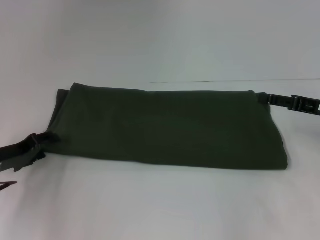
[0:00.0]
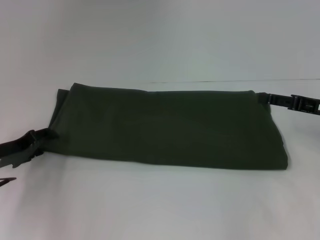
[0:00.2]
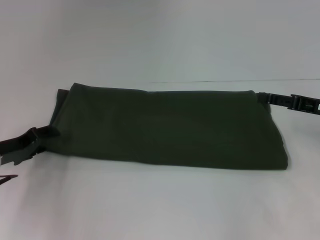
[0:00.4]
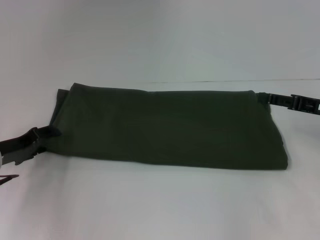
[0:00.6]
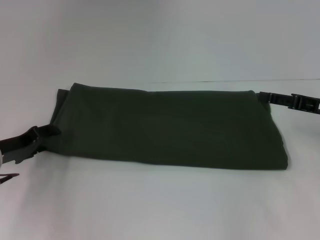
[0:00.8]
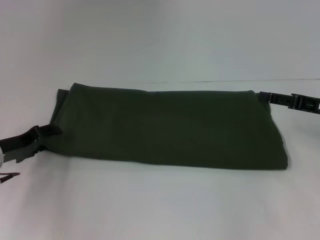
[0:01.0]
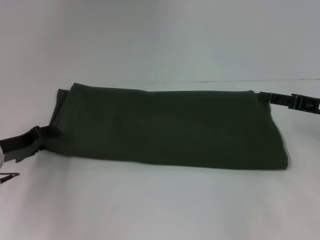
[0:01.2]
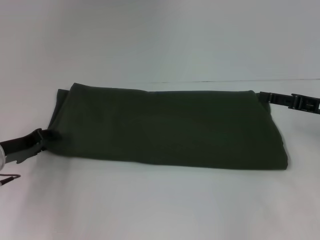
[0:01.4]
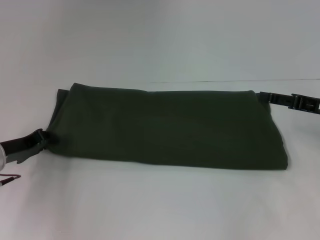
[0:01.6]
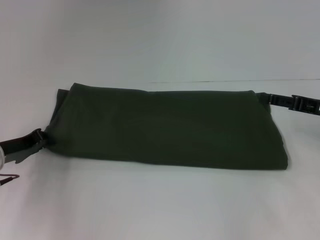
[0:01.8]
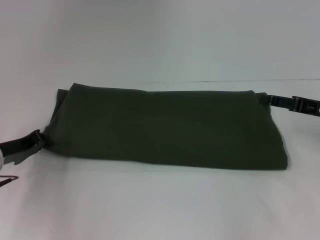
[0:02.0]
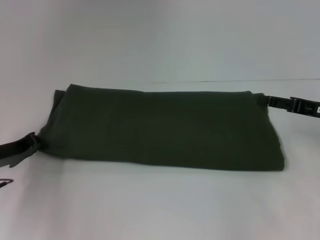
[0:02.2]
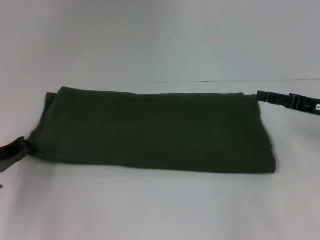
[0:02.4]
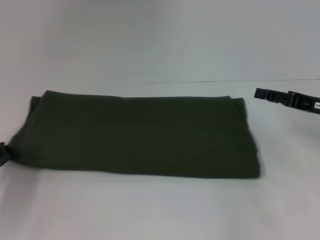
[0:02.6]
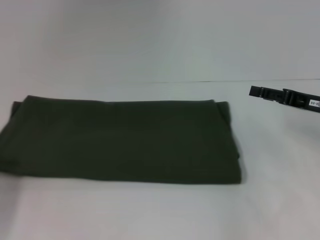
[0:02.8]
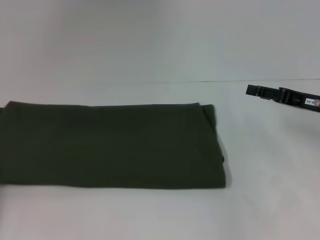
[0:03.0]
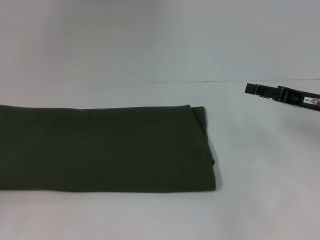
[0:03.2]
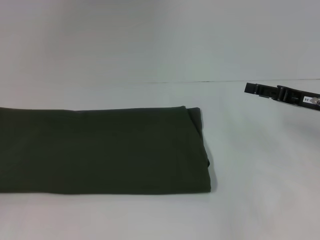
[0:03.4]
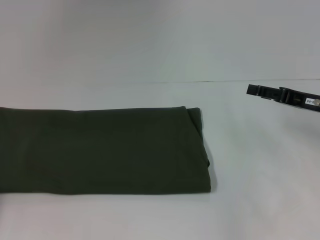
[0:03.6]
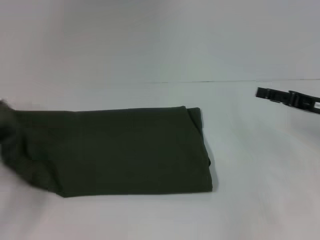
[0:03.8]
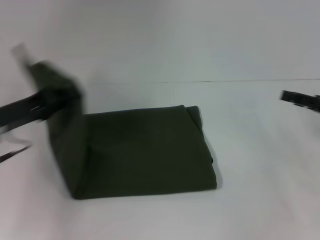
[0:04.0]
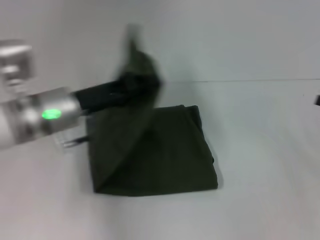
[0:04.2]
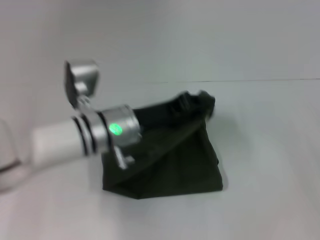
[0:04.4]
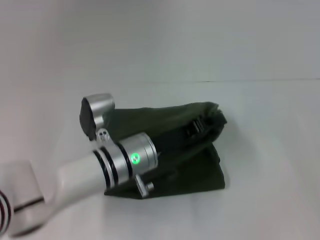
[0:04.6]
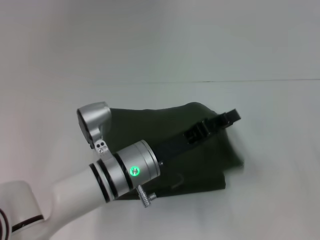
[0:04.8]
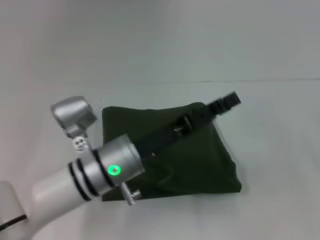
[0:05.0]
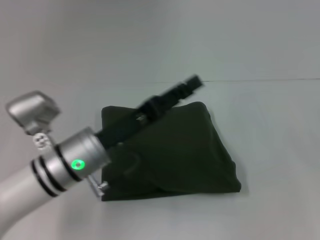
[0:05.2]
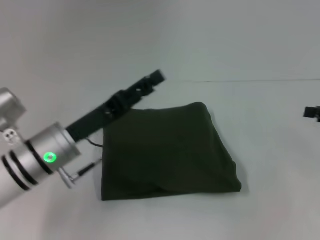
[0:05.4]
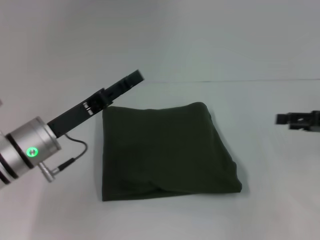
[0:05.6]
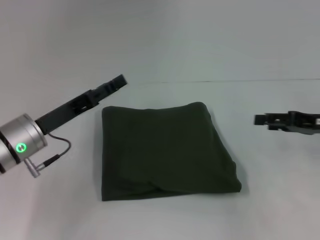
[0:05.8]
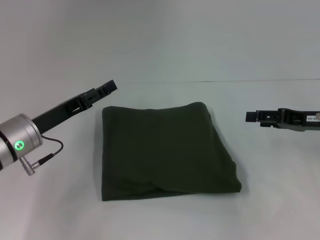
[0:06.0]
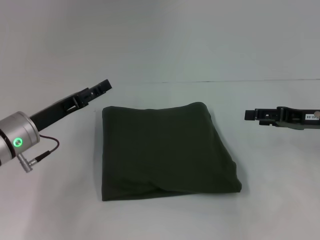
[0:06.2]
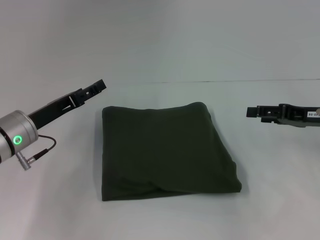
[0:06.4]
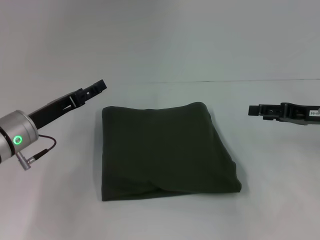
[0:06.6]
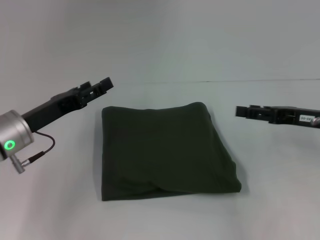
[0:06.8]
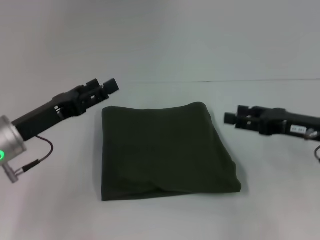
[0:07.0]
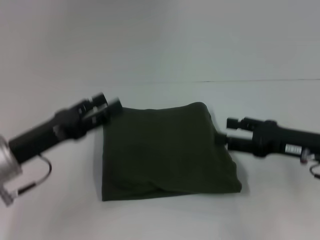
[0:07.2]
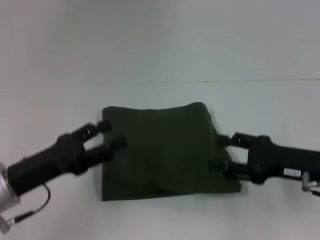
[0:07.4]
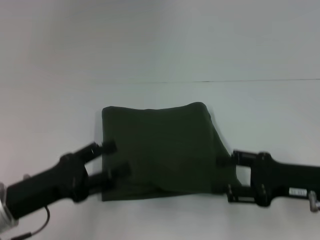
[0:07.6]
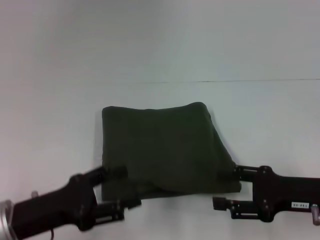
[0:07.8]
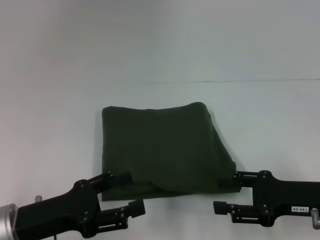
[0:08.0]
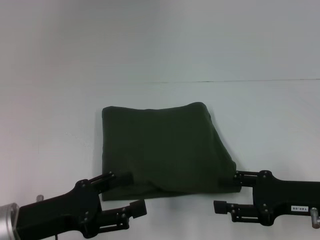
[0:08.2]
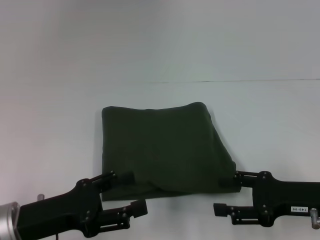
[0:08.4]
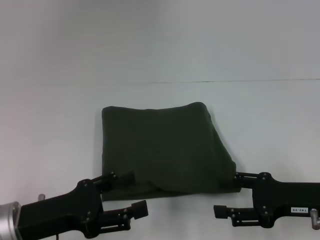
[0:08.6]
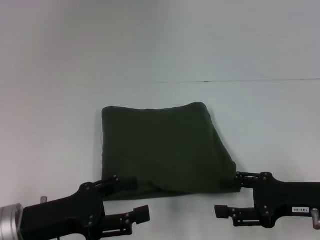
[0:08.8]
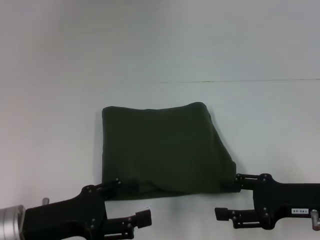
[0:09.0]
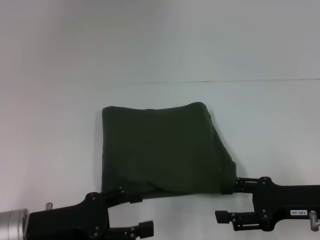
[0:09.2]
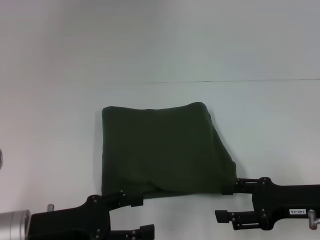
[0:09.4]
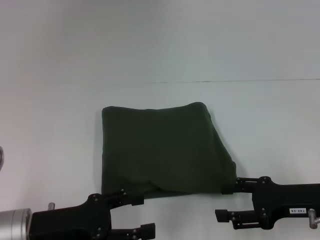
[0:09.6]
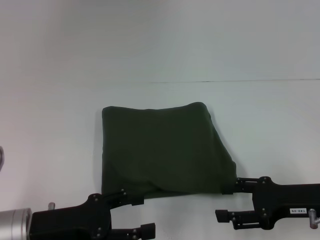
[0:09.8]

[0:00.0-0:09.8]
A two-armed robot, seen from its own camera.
Step, 0:00.0 to 0:07.0: Fold the clothes with your left hand.
0:00.0 to 0:01.4: The grippers stay close to where they were, moving slightly.
0:01.4 to 0:02.8: The left gripper goes about 10 cm to the left and backward, and closes up.
0:02.8 to 0:04.2: The left gripper travels to the right and upward by roughly 20 cm; the right gripper goes about 10 cm to the right.
0:04.2 to 0:05.6: The right gripper moves roughly 5 cm; the left gripper travels to the right and back again, about 10 cm each way, and opens.
0:05.6 to 0:07.0: The right gripper travels to the left by about 5 cm.
0:07.0 to 0:08.4: The two grippers go approximately 10 cm backward.
0:08.4 to 0:09.8: The grippers make only small movements.

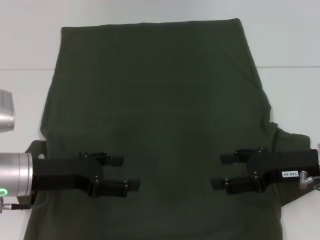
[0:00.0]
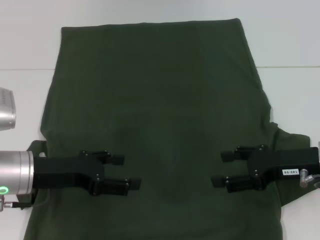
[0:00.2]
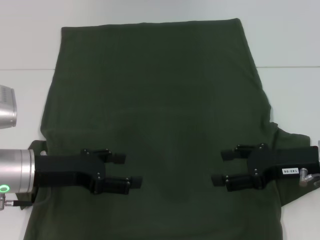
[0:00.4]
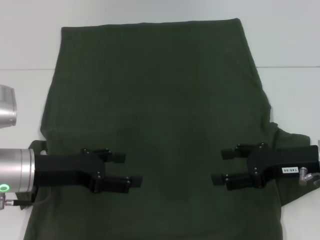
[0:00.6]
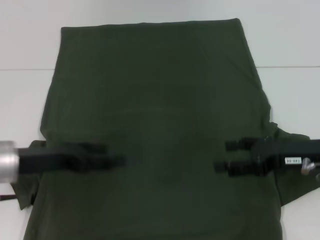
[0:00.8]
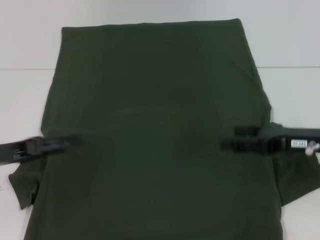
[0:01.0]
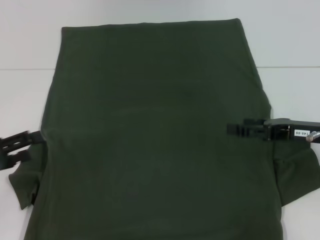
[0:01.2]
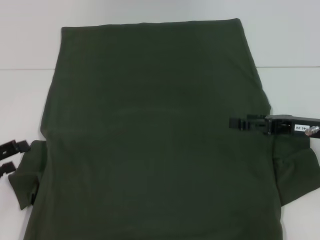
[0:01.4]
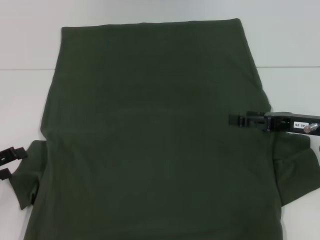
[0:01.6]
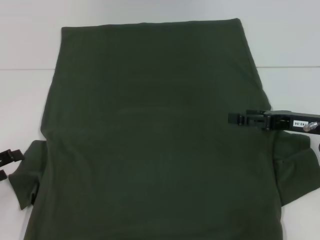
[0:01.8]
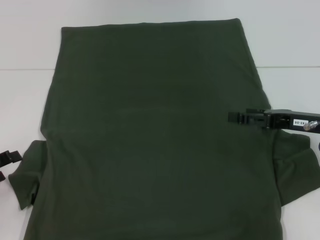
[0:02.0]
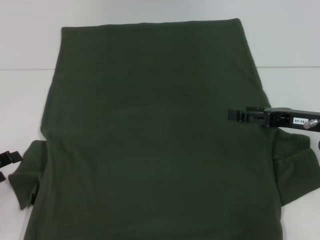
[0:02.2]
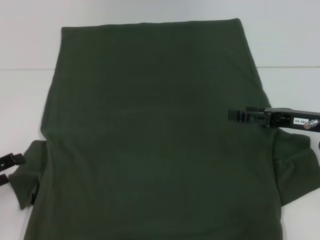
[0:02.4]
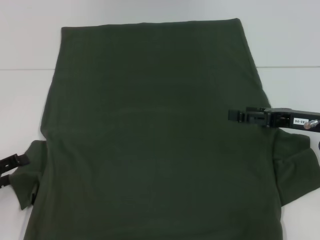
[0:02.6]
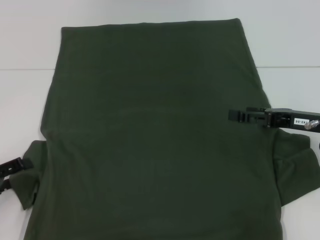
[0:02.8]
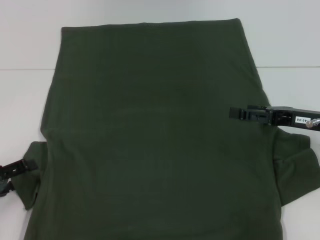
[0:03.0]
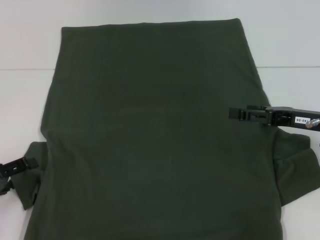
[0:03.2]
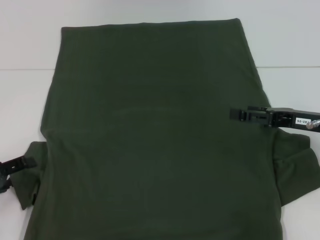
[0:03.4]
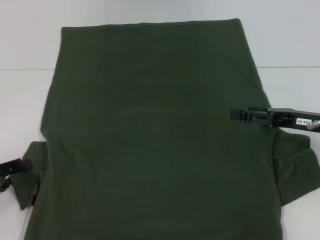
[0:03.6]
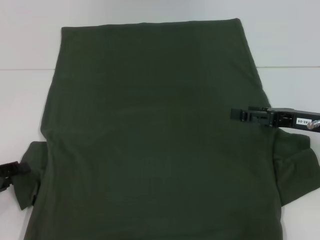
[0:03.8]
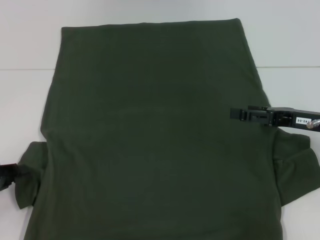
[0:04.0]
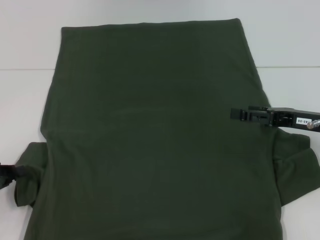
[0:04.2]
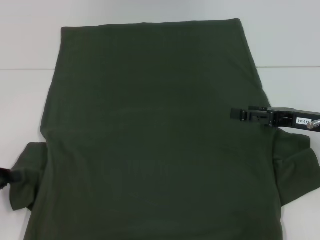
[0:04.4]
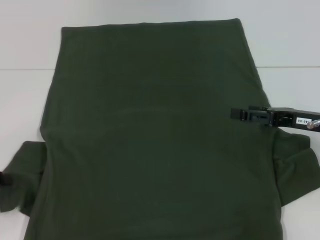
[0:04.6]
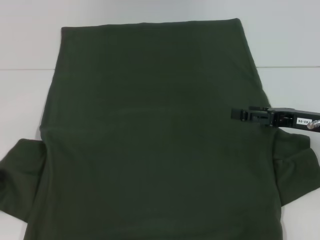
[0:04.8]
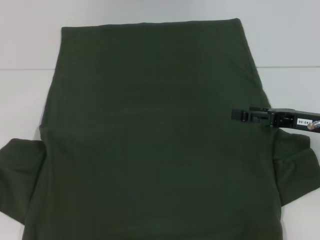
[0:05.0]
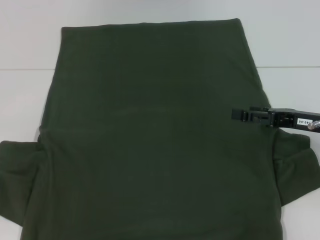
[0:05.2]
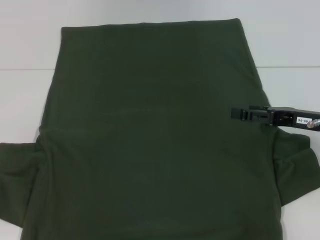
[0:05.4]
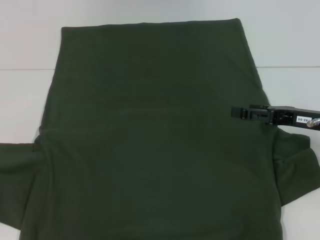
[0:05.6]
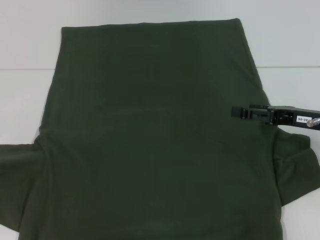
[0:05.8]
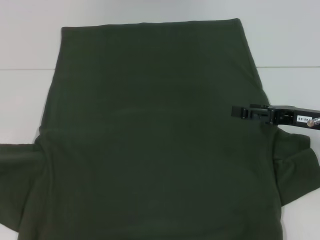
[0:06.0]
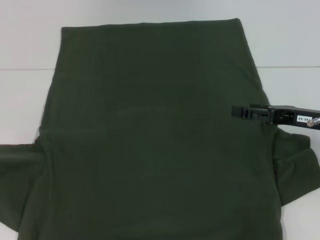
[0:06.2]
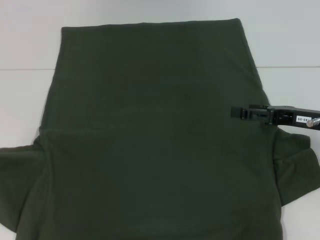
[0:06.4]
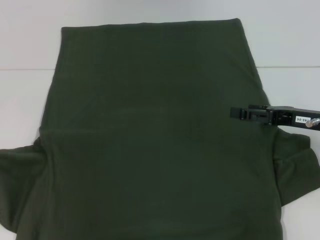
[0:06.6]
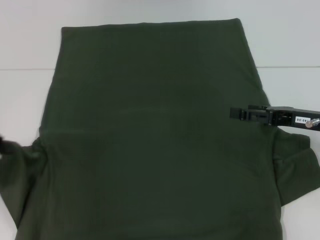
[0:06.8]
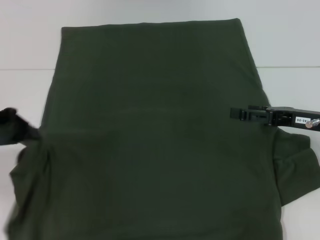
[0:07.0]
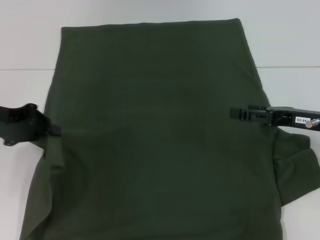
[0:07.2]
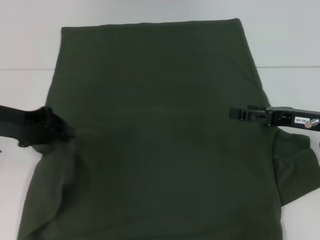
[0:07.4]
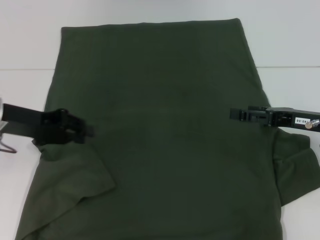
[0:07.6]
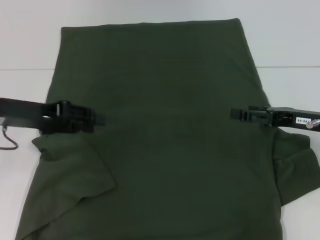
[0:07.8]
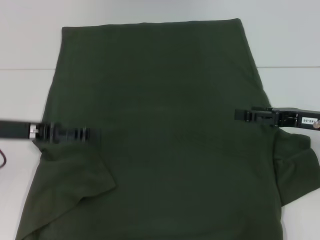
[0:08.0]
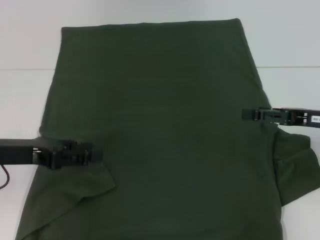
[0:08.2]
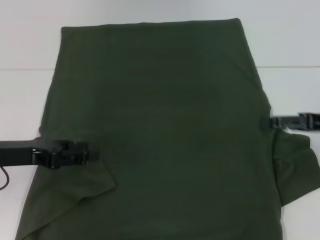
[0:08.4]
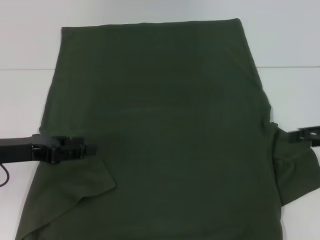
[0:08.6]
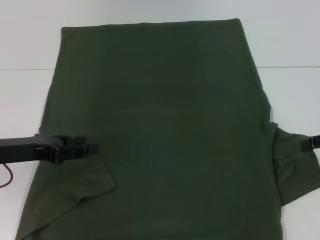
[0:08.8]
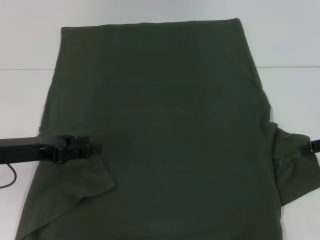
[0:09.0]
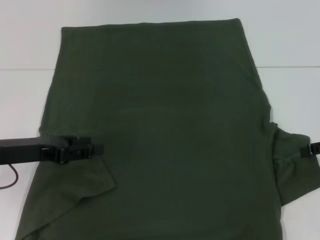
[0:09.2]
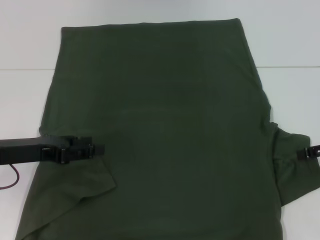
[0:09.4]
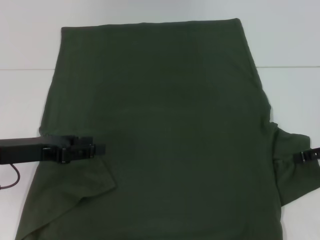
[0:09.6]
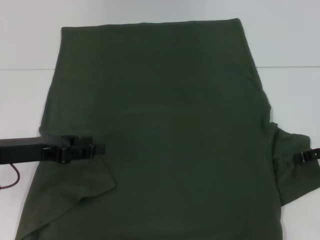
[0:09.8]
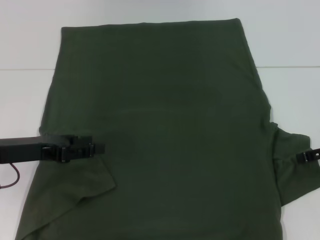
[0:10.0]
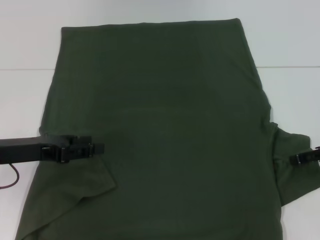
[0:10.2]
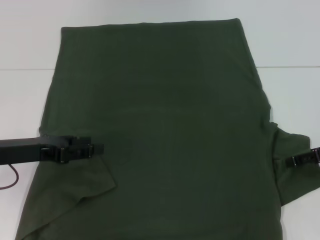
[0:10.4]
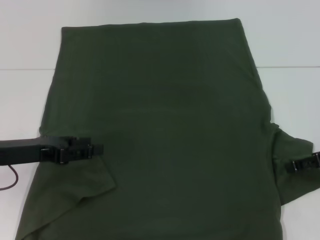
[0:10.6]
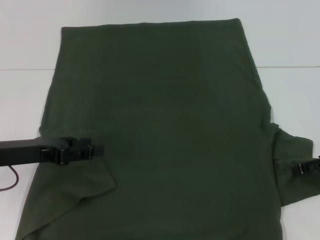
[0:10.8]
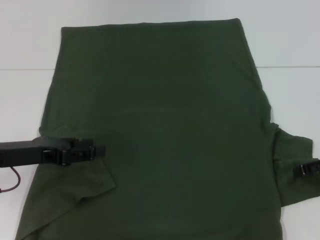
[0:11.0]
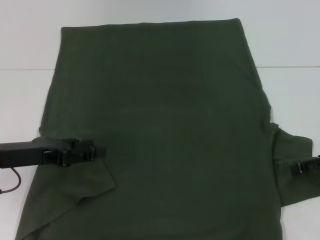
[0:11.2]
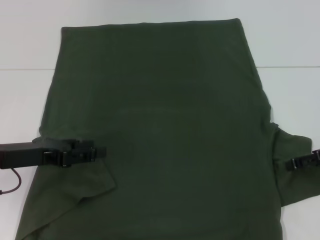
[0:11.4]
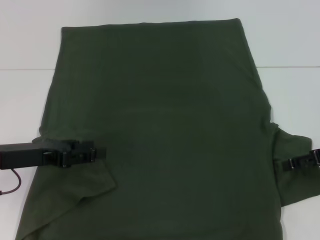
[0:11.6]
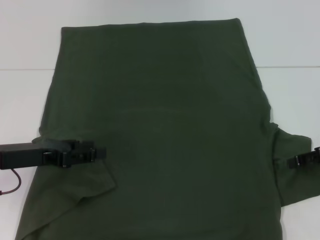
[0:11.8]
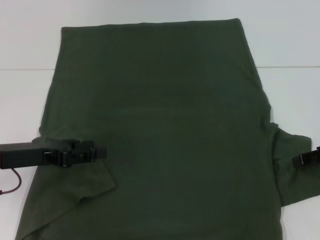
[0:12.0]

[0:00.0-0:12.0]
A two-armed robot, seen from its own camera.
Step, 0:00.0 to 0:07.6: Fold the bottom left sleeve with your left hand.
0:00.0 to 0:01.6: The left gripper heads to the left, covering approximately 15 cm.
0:01.6 to 0:03.0: The grippers stay close to where they were, moving slightly.
0:03.0 to 0:04.4: The left gripper closes up.
0:04.4 to 0:06.0: The left gripper heads upward, covering roughly 5 cm.
0:06.0 to 0:07.6: The left gripper travels to the right and forward by about 15 cm.
0:07.6 to 0:09.0: The right gripper travels to the right by roughly 10 cm, while the left gripper goes roughly 5 cm backward, and opens up.
0:10.4 to 0:12.0: The grippers make only small movements.
